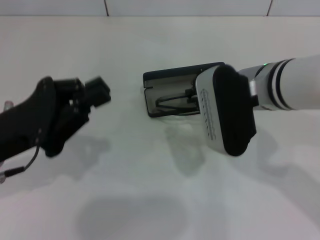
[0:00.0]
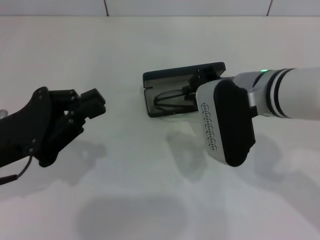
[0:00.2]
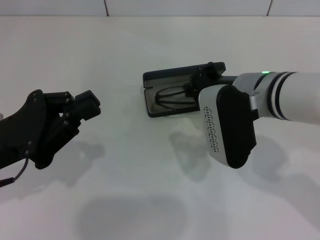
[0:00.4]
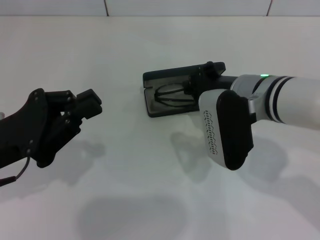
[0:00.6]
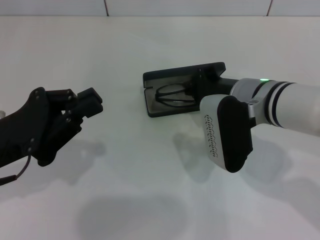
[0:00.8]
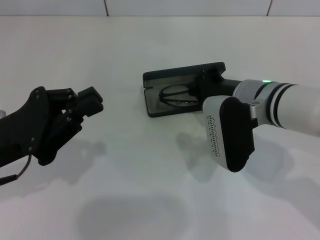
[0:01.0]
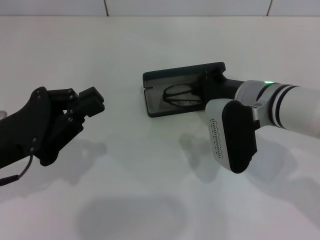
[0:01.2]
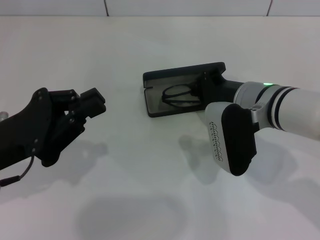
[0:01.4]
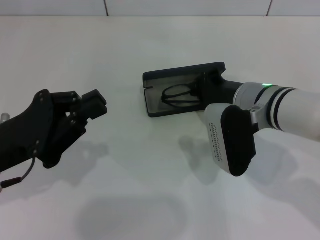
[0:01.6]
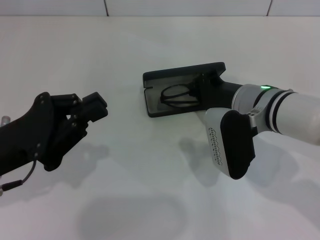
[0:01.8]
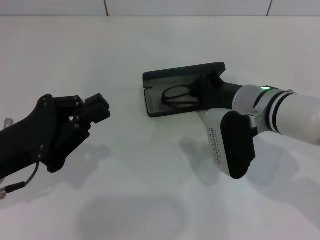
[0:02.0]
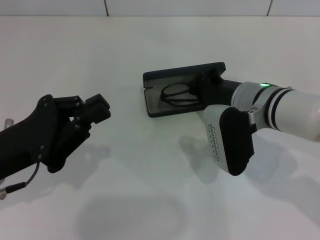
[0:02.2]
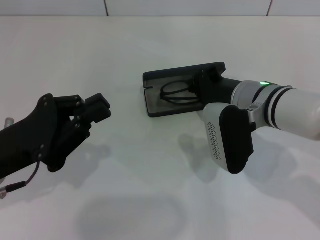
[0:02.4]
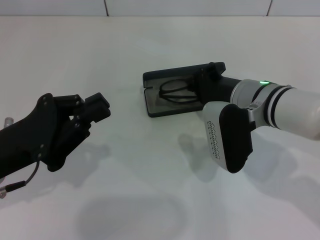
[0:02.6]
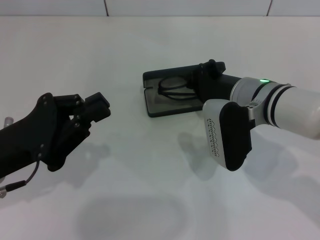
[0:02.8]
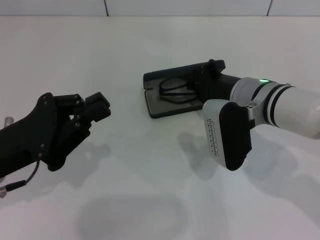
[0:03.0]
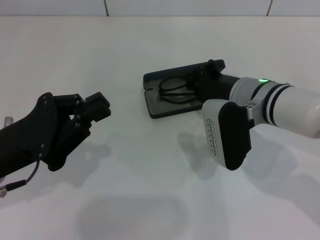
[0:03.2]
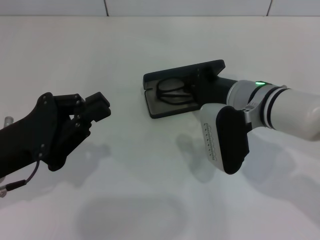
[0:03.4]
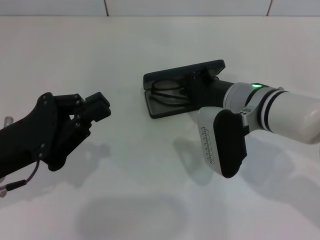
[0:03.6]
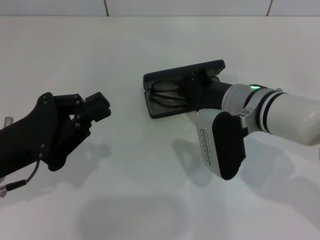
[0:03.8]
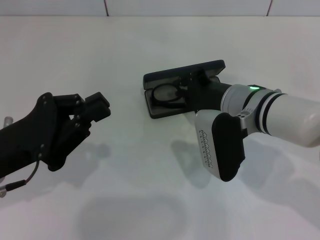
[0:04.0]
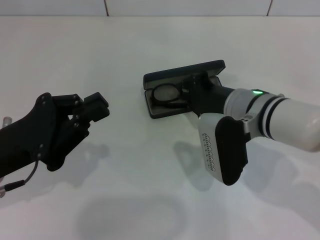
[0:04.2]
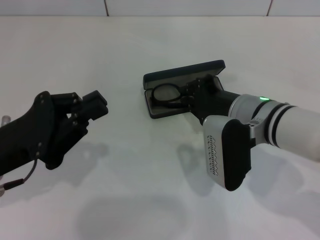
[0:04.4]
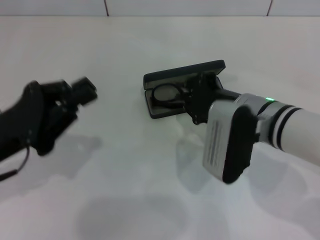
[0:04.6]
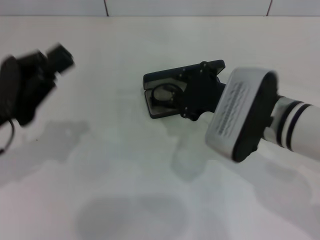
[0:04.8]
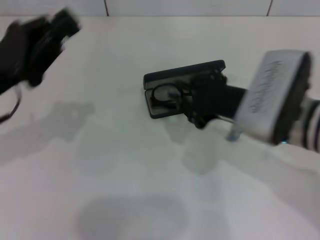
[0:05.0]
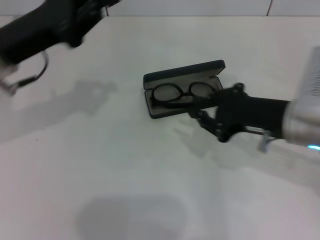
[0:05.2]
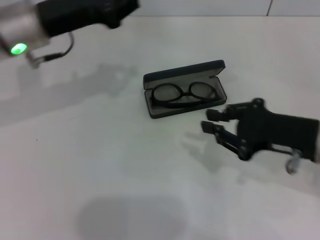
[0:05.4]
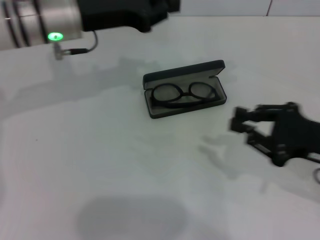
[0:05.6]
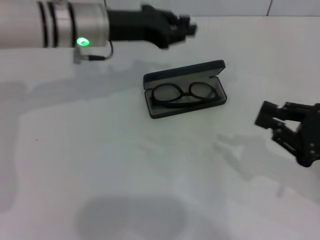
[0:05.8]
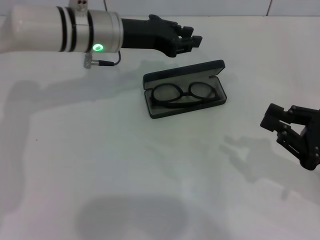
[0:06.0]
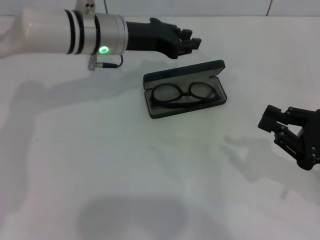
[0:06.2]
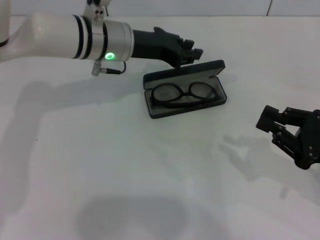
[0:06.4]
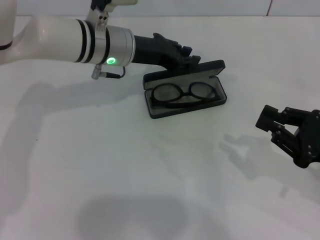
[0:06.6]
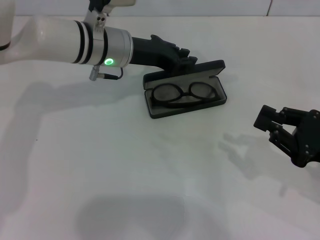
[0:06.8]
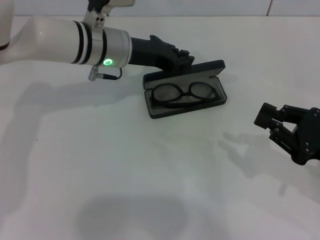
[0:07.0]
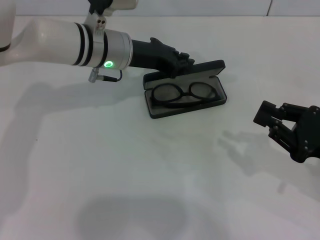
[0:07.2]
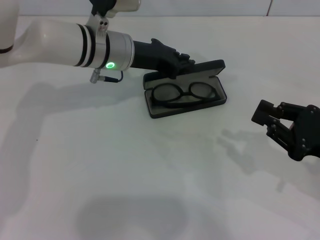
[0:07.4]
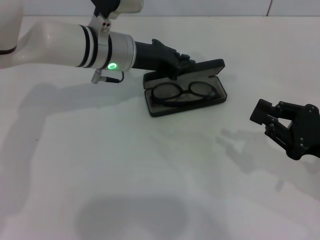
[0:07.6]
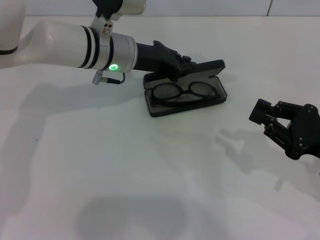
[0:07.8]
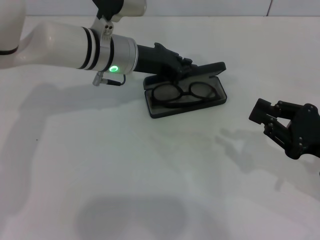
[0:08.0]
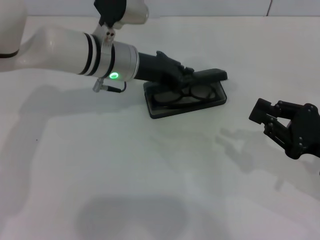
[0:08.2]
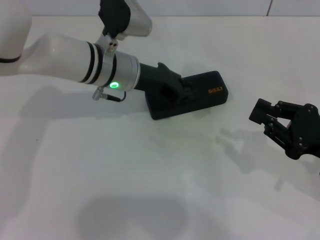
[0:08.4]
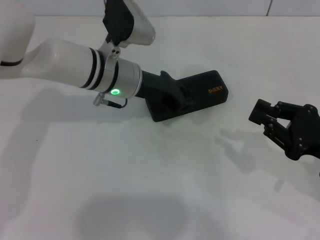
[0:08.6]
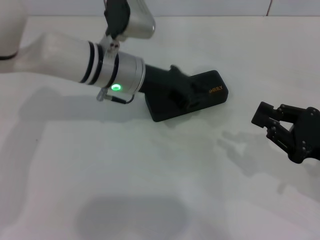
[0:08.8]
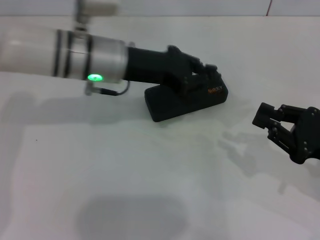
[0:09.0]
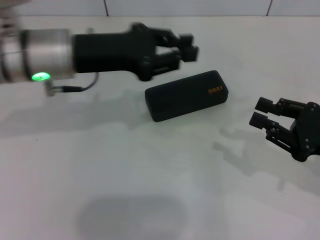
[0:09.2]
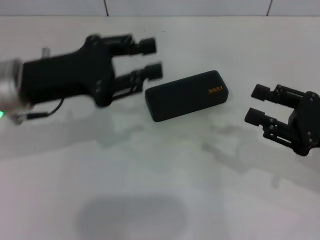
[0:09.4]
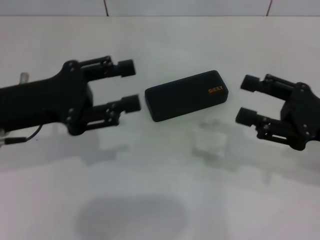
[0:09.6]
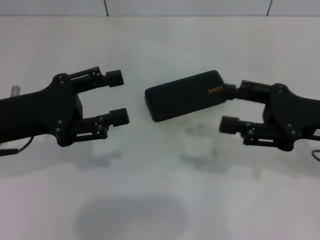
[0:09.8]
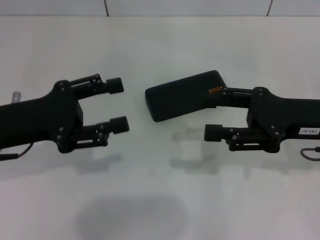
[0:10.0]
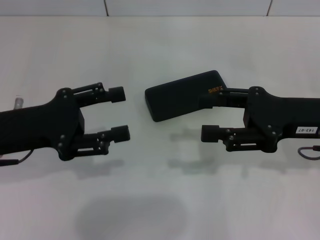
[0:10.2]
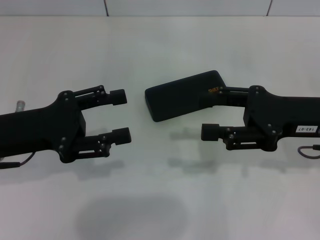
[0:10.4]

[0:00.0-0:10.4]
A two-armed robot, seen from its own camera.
Step, 0:00.0 to 0:04.2: Put the glasses into the case with your right hand.
Step, 0:04.4 to 0:08.2: Close the glasses case with your left hand.
0:00.0 to 0:01.4: The right gripper travels downward by some 5 cm.
0:01.4 to 0:03.0: Neither gripper changes place.
0:03.0 to 0:04.4: The grippers stay close to where they were, moving slightly.
0:04.4 to 0:06.0: The right gripper is displaced to the right and backward by about 20 cm; the left gripper heads forward and to the right, covering about 25 cm.
0:06.0 to 0:07.4: The grippers move only a little.
0:07.4 to 0:09.0: The left gripper ends up about 5 cm from where it was.
0:09.0 to 0:10.4: The left gripper travels to the left and backward by roughly 20 cm, and opens its fingers. Meanwhile the right gripper heads upward, to the left and forward, covering about 10 cm, and opens up.

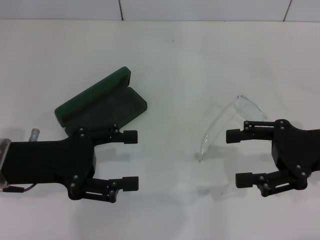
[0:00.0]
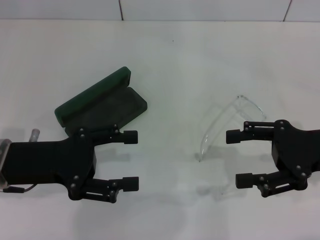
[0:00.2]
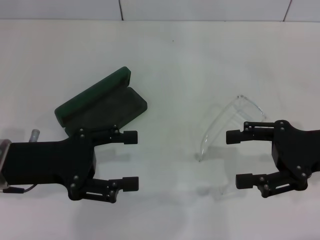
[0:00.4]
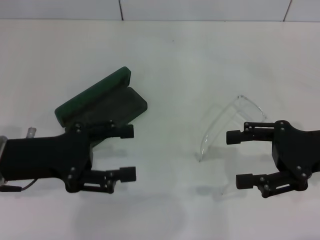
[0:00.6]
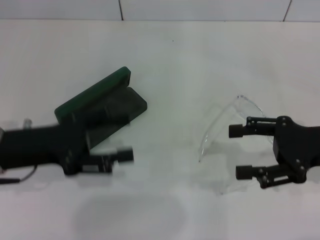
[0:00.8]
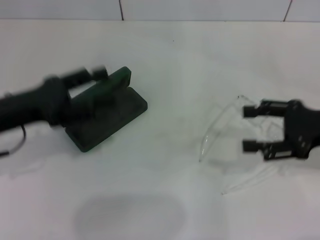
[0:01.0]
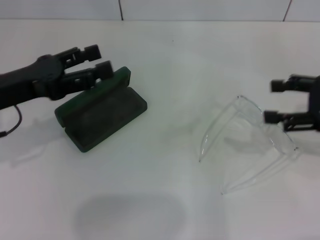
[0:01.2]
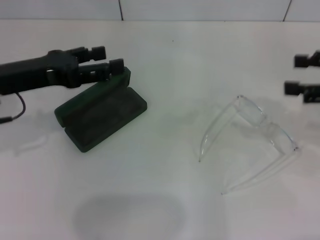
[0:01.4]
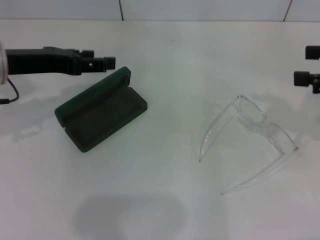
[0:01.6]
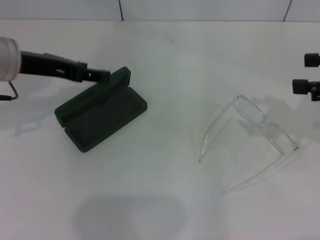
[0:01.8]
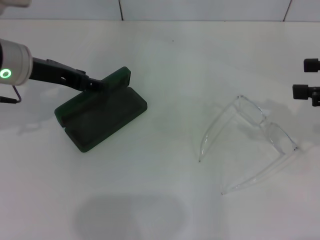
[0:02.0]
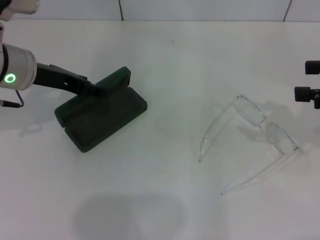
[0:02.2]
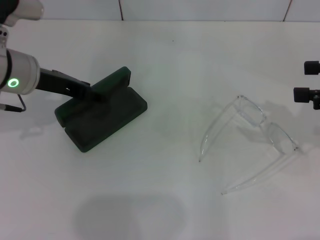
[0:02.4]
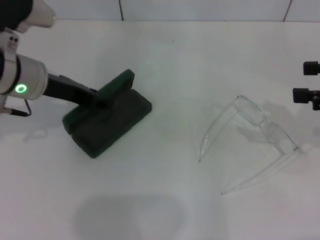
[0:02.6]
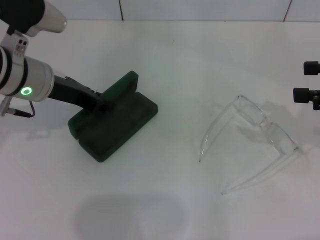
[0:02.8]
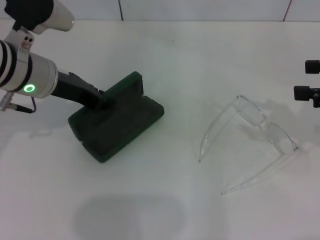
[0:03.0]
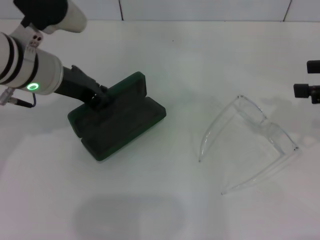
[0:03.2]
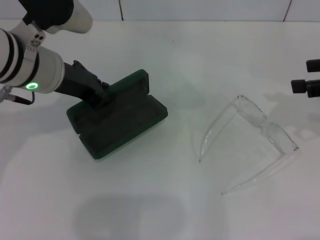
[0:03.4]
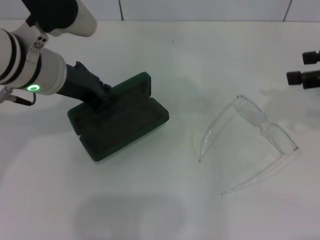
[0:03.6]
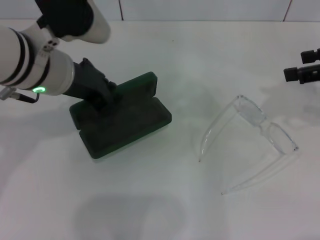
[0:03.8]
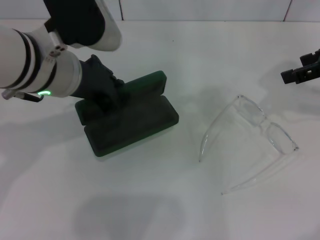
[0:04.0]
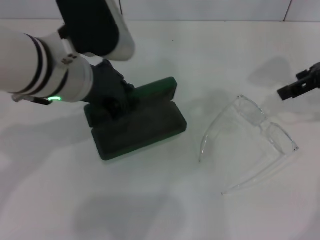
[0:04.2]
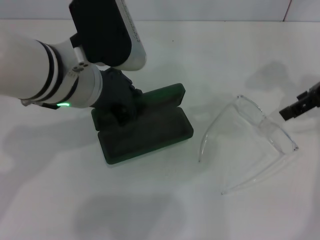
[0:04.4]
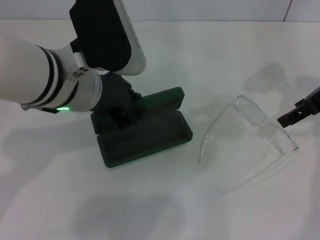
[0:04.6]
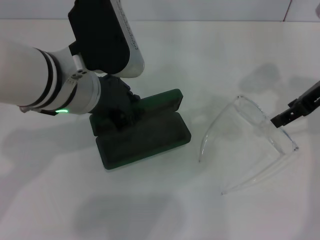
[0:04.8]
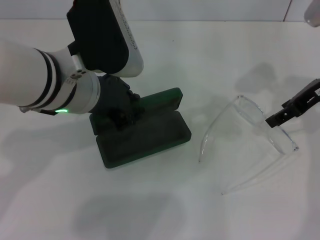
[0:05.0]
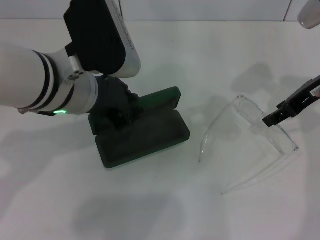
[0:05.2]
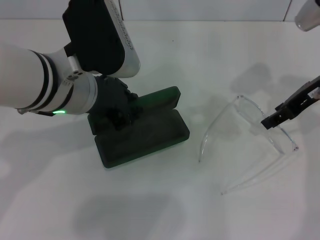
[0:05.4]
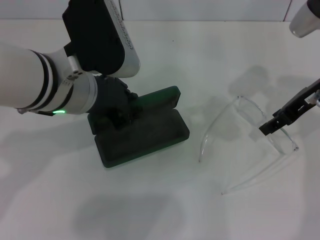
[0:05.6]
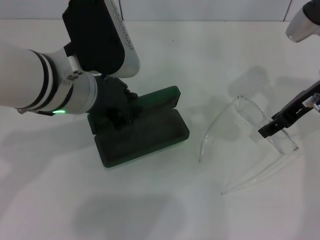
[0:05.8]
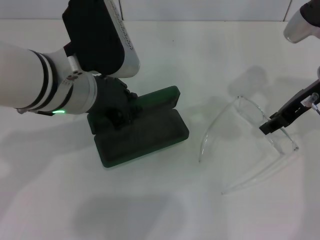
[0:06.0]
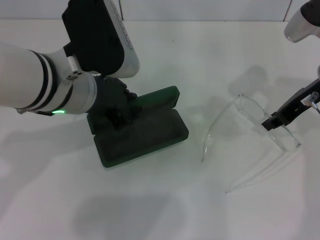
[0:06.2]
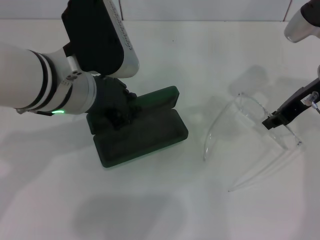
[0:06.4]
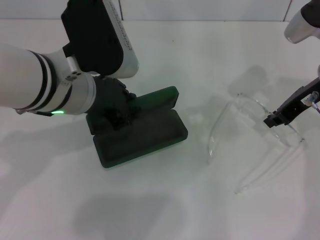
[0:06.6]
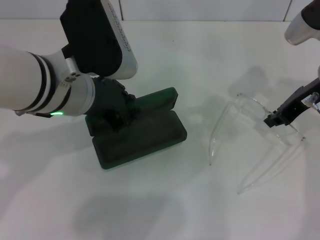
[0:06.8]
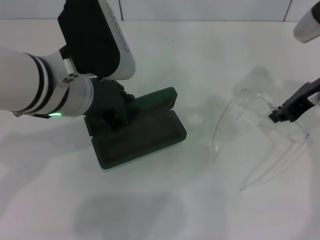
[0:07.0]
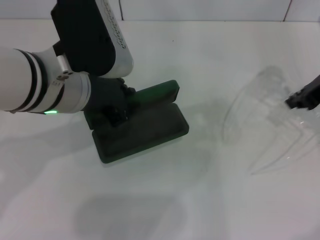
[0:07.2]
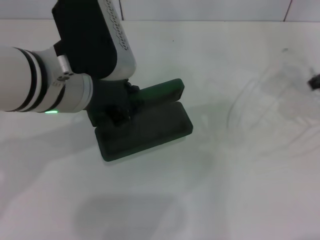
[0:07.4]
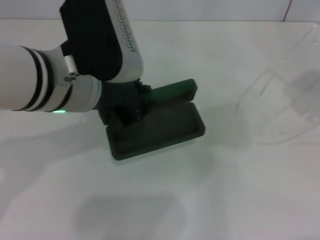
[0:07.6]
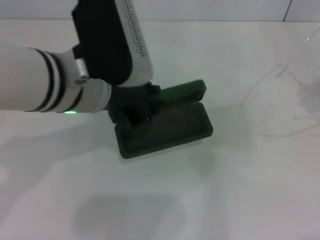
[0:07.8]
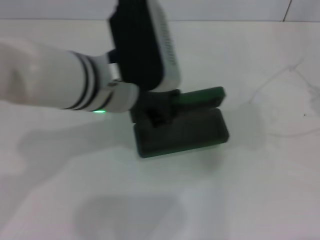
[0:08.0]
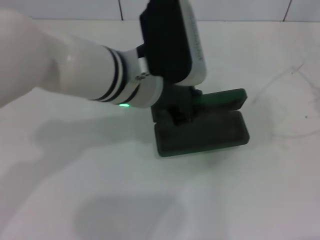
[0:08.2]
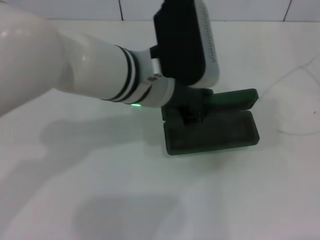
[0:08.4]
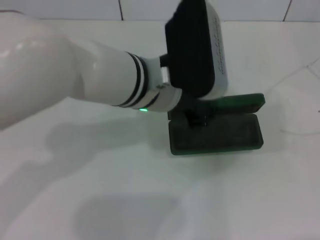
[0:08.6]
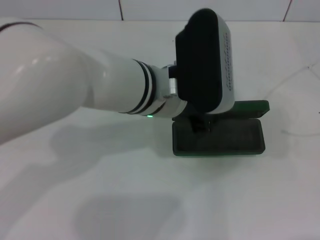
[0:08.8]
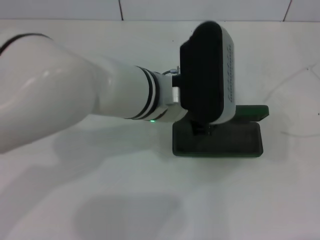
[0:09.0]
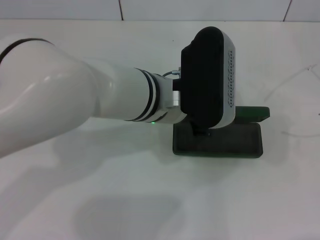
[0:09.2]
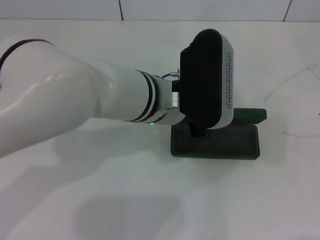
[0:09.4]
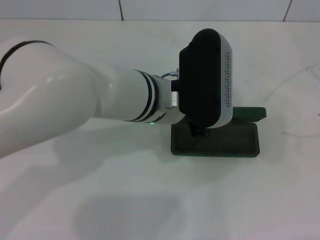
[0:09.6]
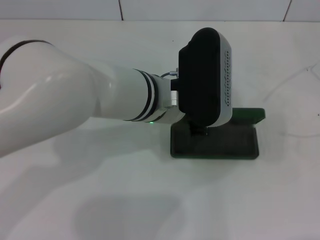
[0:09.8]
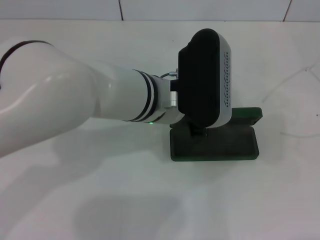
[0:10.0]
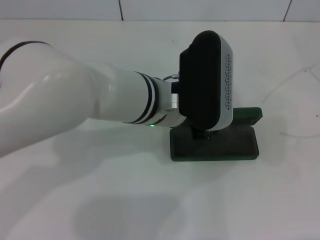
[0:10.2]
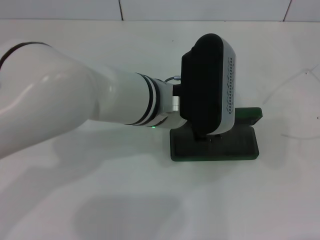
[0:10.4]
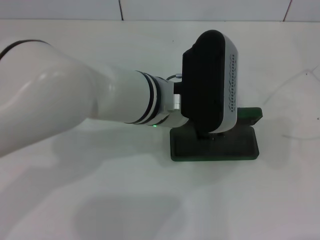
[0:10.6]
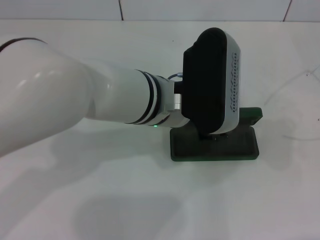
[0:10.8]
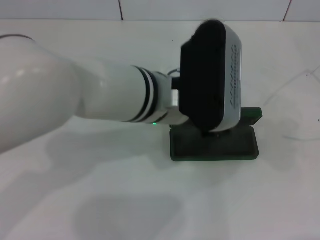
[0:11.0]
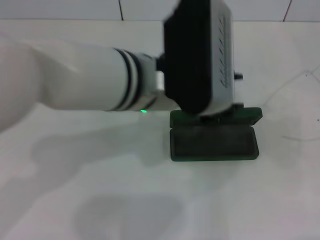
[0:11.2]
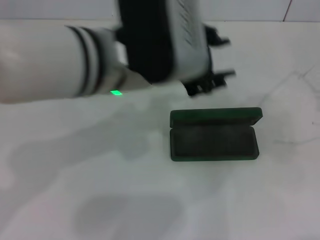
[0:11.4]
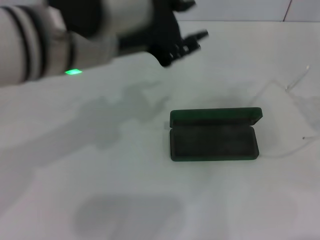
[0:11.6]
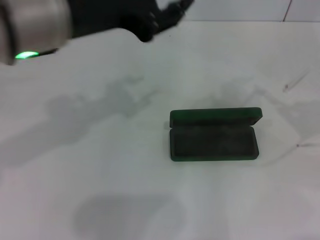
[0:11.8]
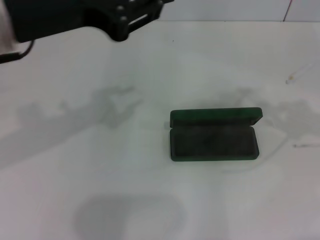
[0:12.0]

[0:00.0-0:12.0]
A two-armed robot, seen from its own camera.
Step, 0:00.0 to 0:02.6: Grab the glasses case with your left hand.
Step, 0:02.8 to 0:10.8: Place the glasses case in the center of the table with your left hand.
0:00.0 to 0:01.6: The left gripper travels forward and upward by roughly 10 cm, while the right gripper is displaced upward and to the right by approximately 10 cm.
0:01.6 to 0:03.0: The left gripper heads to the right, covering about 5 cm, and closes.
0:03.0 to 0:04.4: The right gripper heads forward and to the left, covering about 10 cm; the left gripper shifts some 10 cm to the right and backward.
0:04.4 to 0:06.0: The right gripper travels downward by about 5 cm.
0:06.0 to 0:07.6: The right gripper heads to the right, upward and backward, covering approximately 15 cm, and closes.
0:07.6 to 0:09.0: The left gripper shifts approximately 10 cm to the right and downward, while the right gripper goes approximately 5 cm to the right.
0:09.0 to 0:10.4: Neither gripper changes place.
0:10.4 to 0:12.0: The left gripper heads to the left and upward, covering approximately 20 cm.
